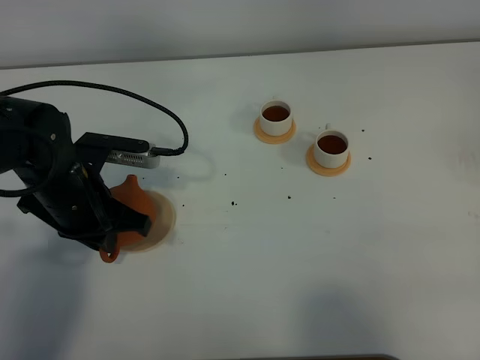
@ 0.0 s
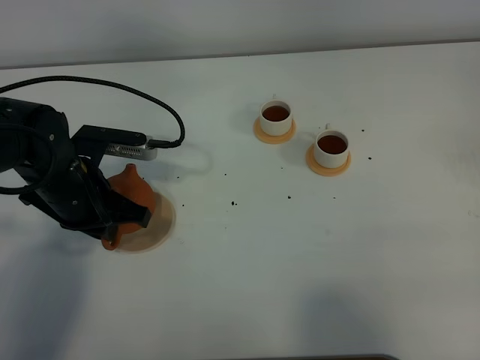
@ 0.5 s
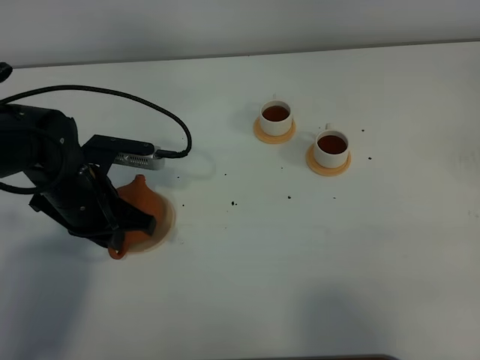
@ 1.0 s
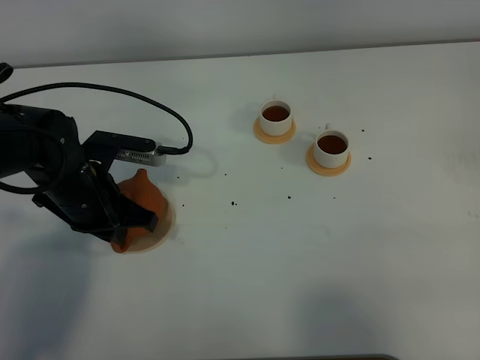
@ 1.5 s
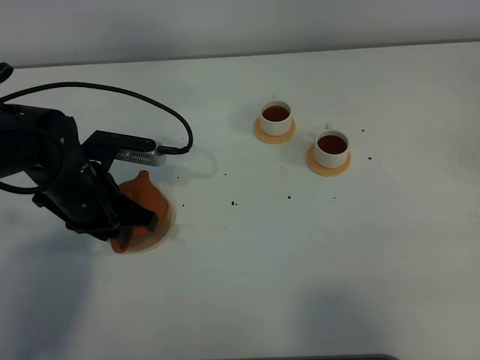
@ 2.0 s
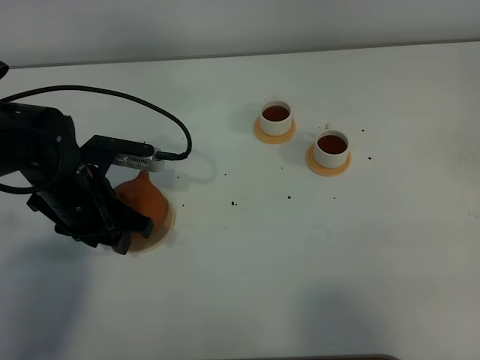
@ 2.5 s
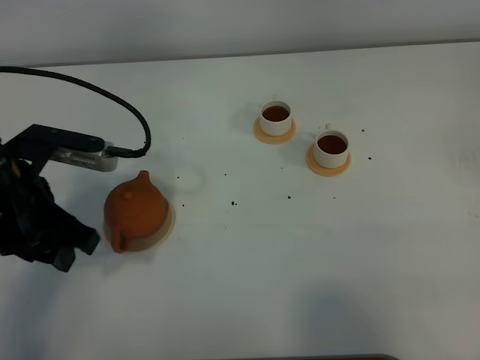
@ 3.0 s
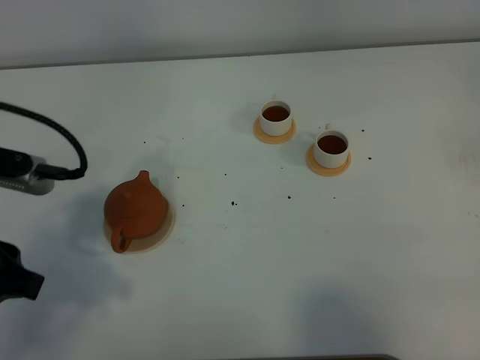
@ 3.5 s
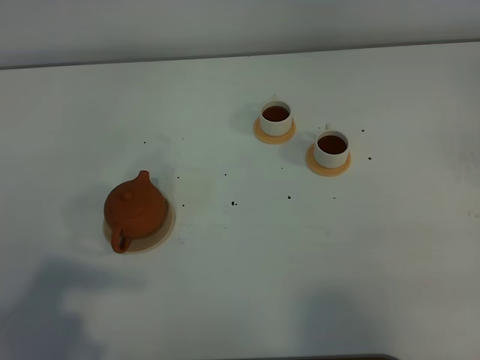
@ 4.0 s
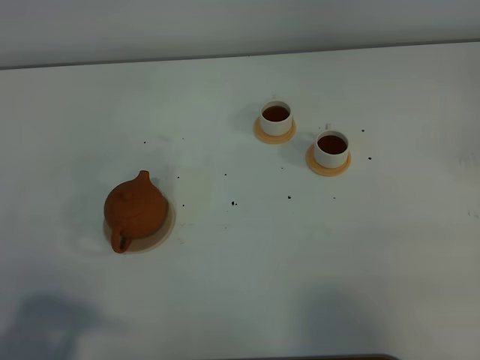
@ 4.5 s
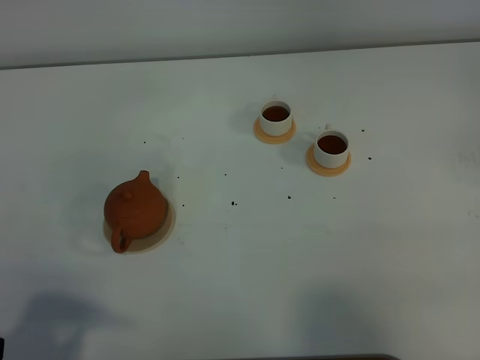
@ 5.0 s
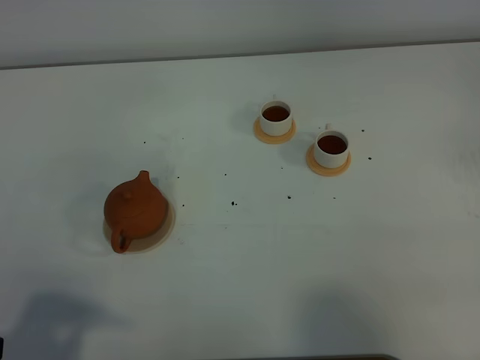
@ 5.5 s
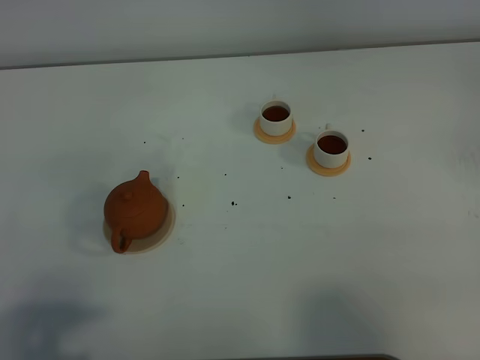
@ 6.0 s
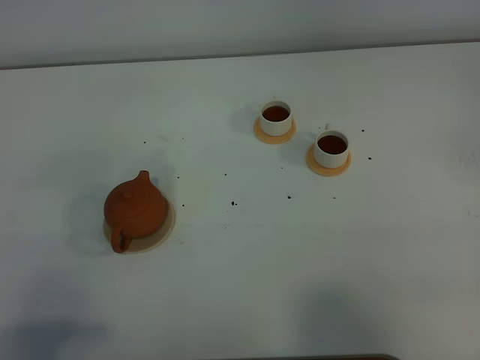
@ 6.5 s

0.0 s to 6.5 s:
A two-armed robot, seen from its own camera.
Task of the whole recording: grasp the brown teapot and pour the tea into the two white teacups one by one, put the brown teapot back in its original place.
0.0 to 2.0 s: The left gripper opens up.
2.0 to 4.5 s: The left gripper travels backward and upward by approximately 30 cm, and opens.

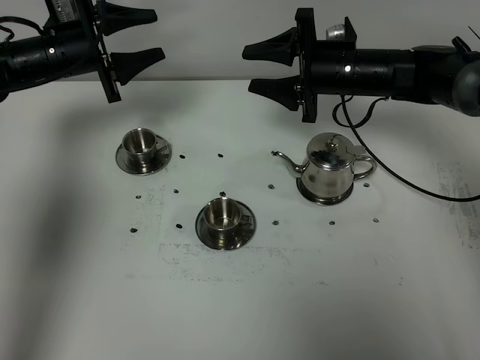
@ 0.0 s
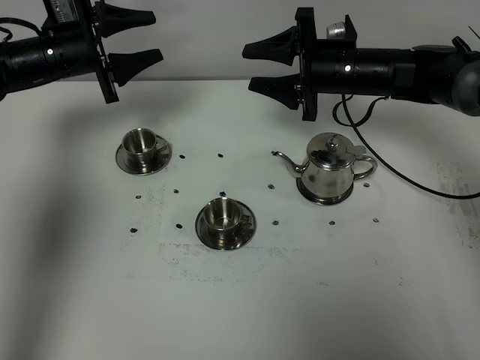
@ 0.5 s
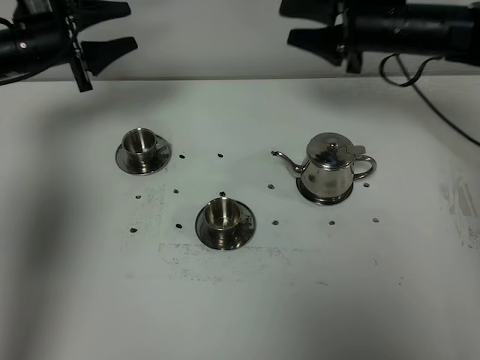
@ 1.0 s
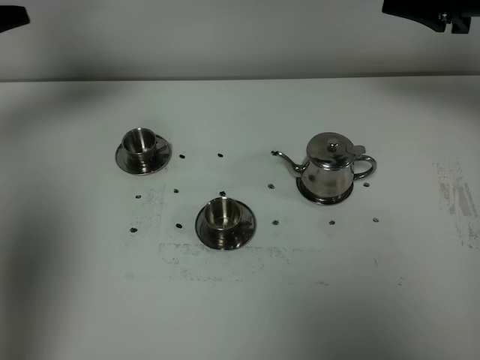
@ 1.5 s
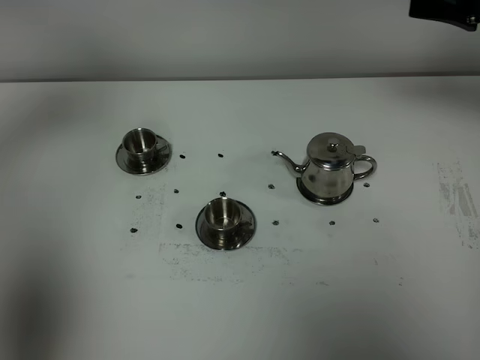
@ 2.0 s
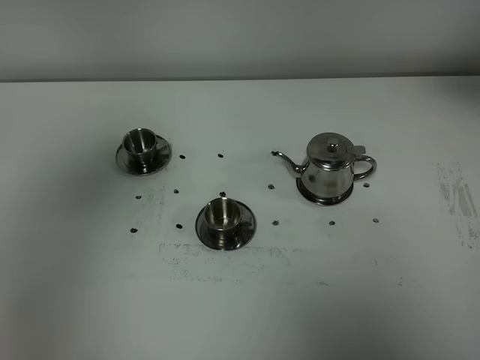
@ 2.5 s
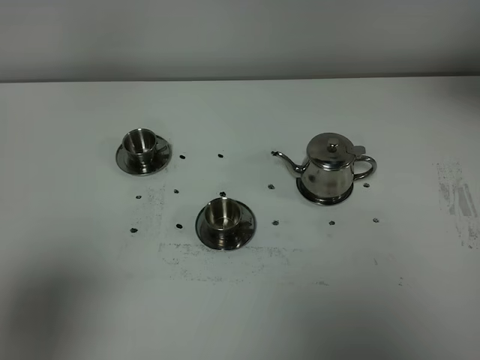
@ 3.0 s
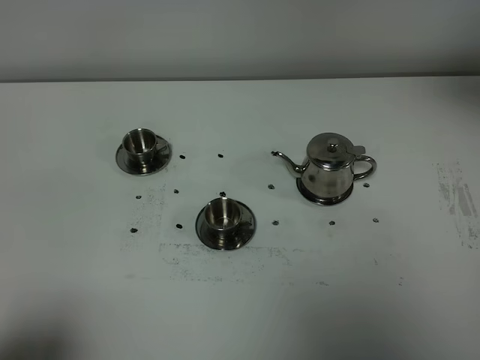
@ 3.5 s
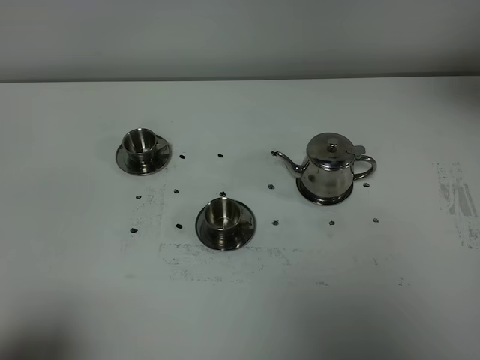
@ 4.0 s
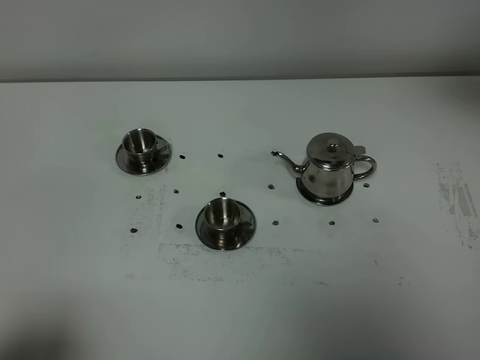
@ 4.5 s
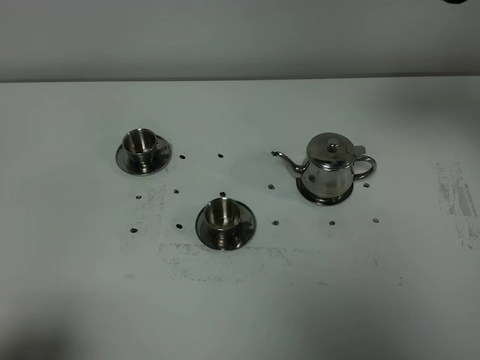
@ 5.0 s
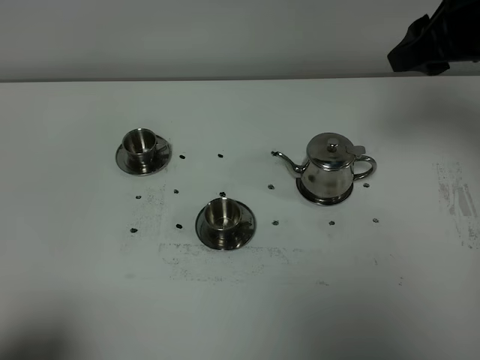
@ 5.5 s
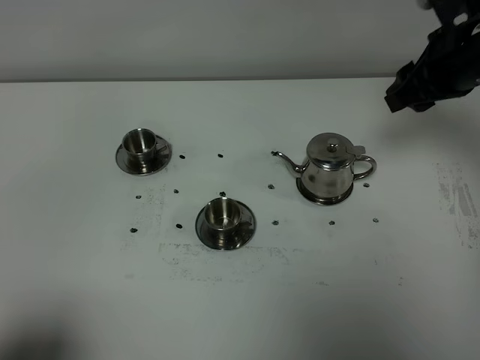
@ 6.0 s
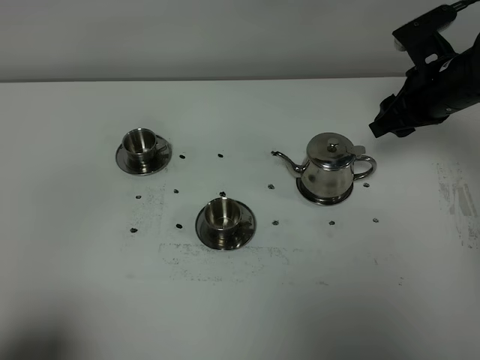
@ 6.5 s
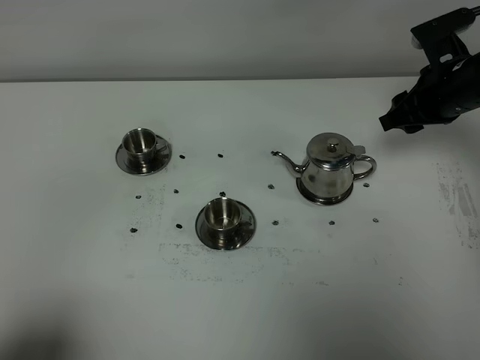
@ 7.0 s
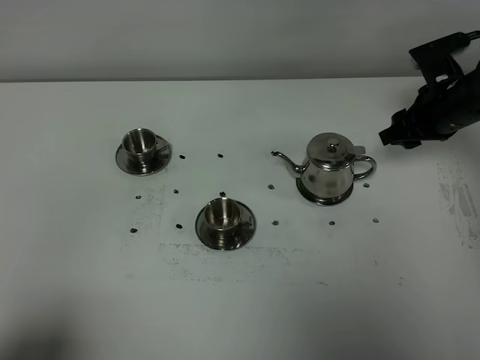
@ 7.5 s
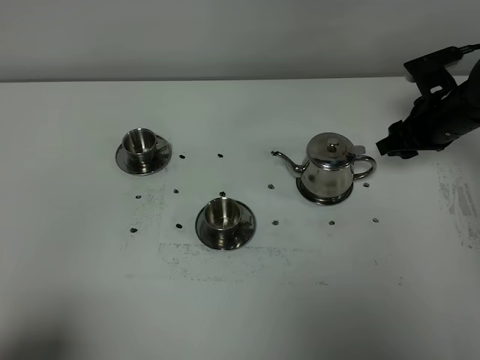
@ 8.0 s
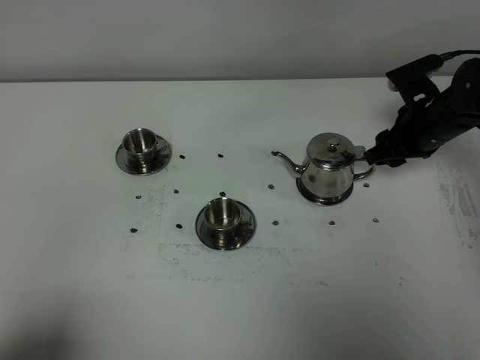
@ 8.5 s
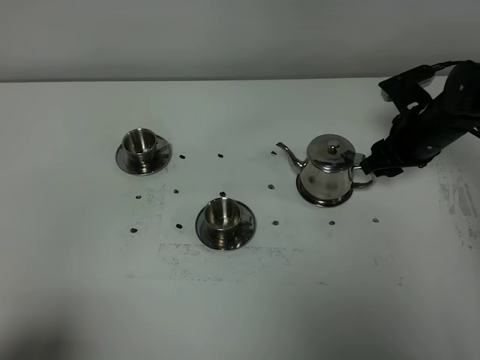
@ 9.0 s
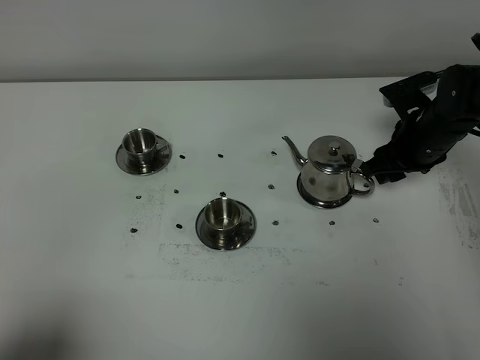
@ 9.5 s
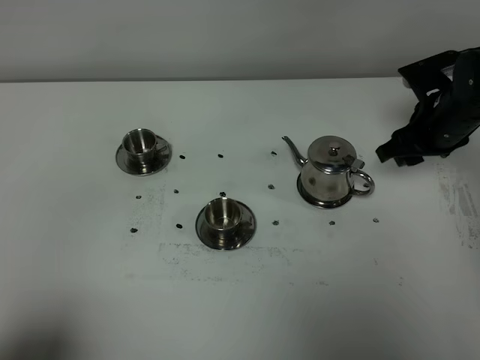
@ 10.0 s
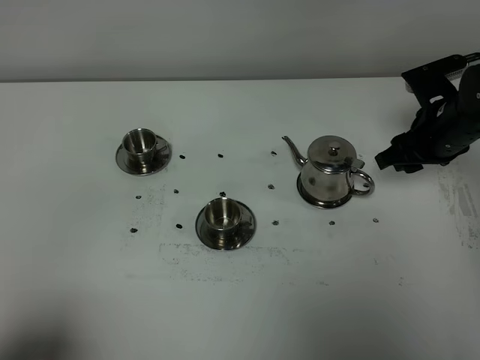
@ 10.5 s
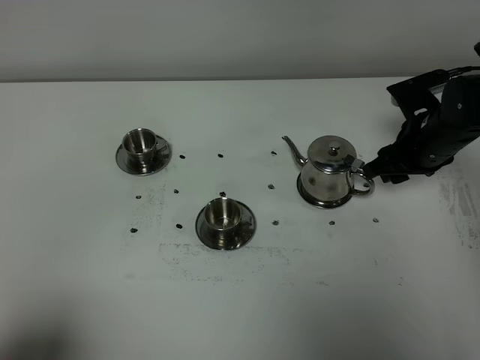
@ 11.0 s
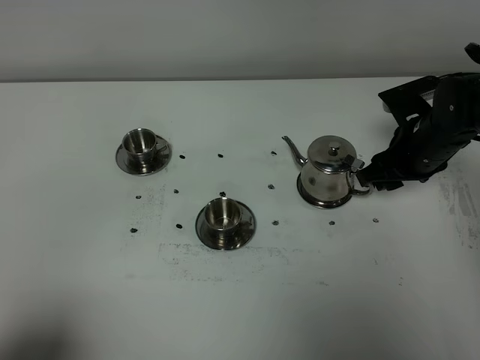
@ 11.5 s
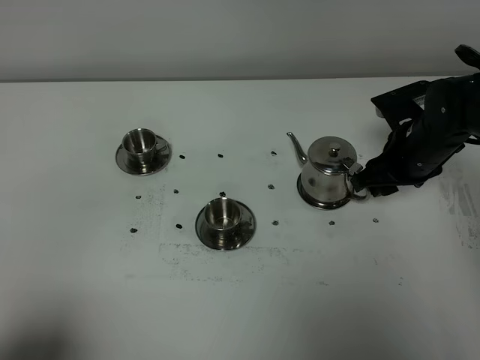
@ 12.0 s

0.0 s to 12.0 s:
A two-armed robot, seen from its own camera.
Task of the whole recording: grasp the stainless steel teapot and pour the tea into the two stainless steel teacups one by one, put the stainless steel teapot back in its original place.
0.0 to 2.0 s: The right gripper heads upward, to the right and backward, covering some 25 cm; the left gripper moves upward, backward and to the left, about 35 cm.
2.0 to 4.0 s: The right gripper is displaced upward and backward by some 15 cm. The left gripper is displaced backward and downward by about 35 cm.
4.0 to 6.0 s: The right gripper travels downward and forward by approximately 20 cm.
6.0 to 8.0 s: The right gripper shifts approximately 10 cm downward.
8.0 to 10.0 s: The grippers stay close to where they were, moving slightly.
10.0 to 12.0 s: The right gripper moves about 5 cm.

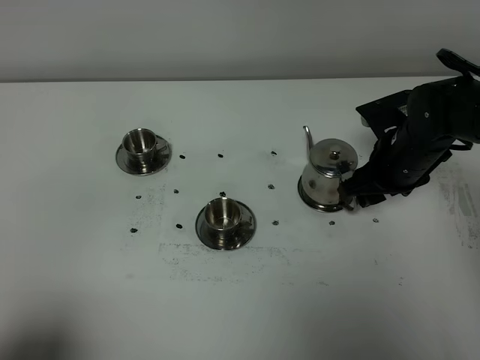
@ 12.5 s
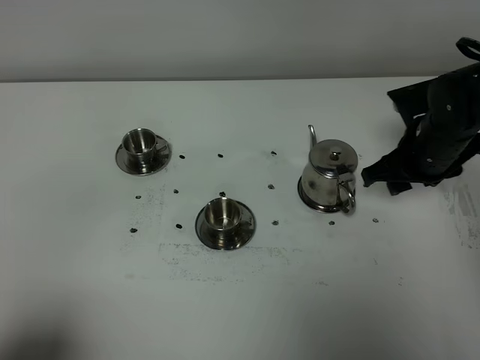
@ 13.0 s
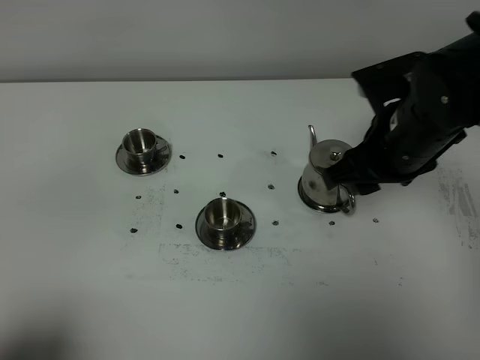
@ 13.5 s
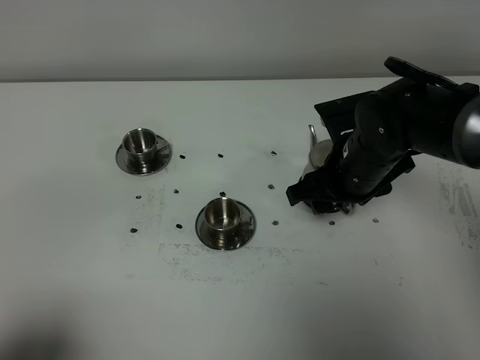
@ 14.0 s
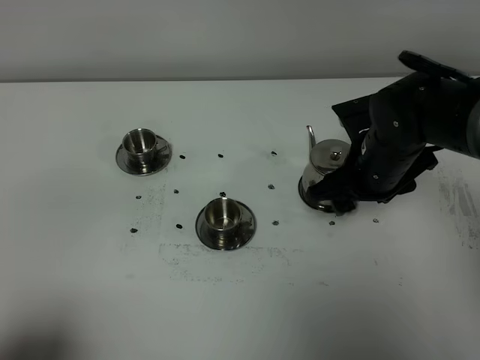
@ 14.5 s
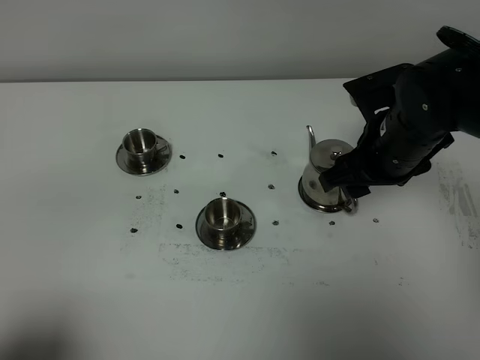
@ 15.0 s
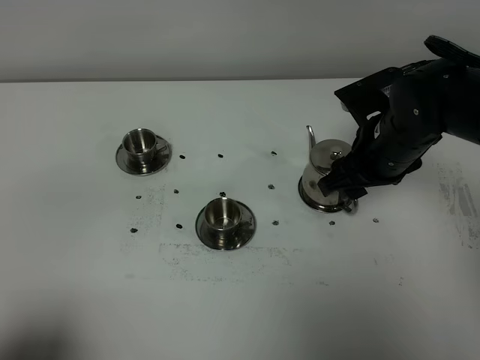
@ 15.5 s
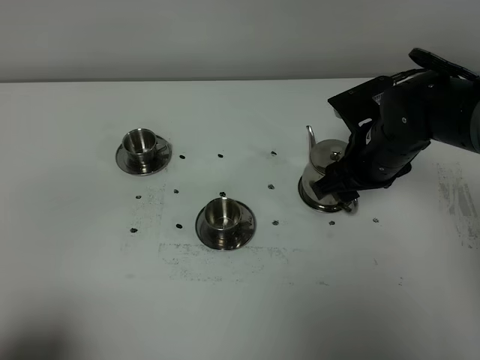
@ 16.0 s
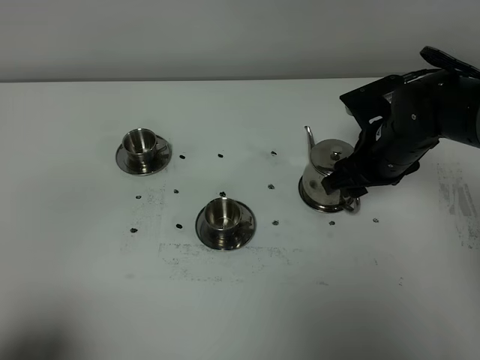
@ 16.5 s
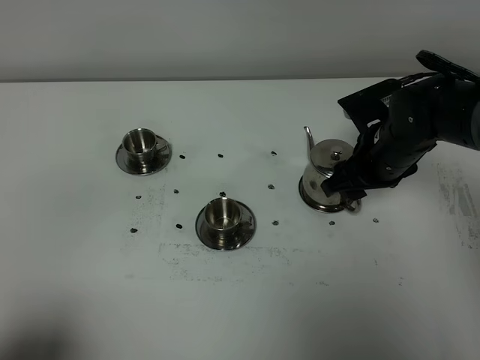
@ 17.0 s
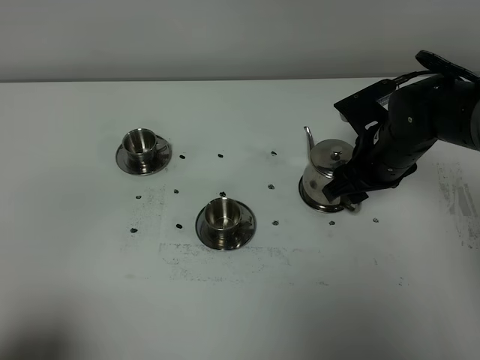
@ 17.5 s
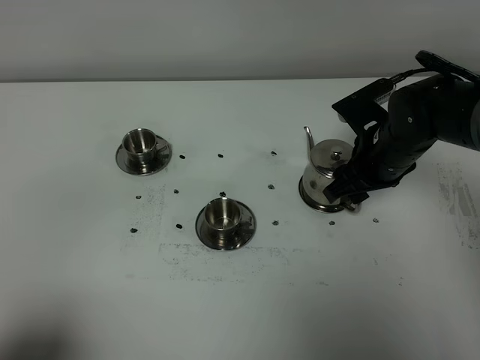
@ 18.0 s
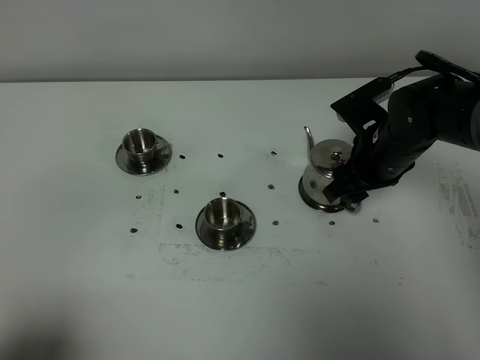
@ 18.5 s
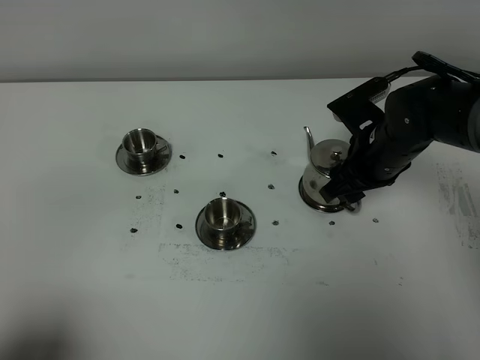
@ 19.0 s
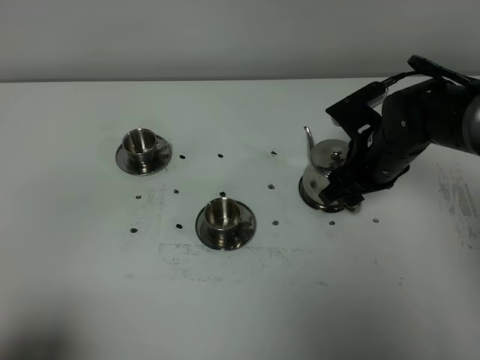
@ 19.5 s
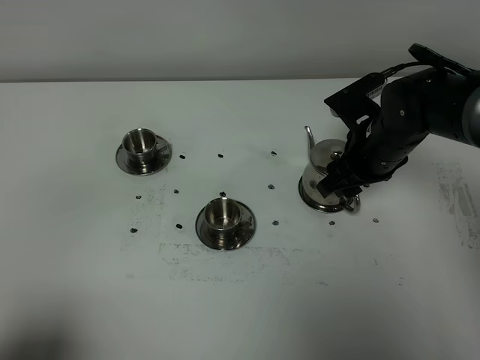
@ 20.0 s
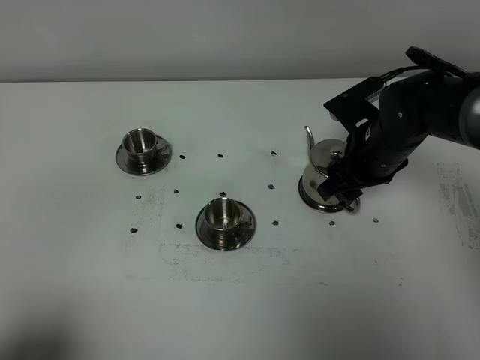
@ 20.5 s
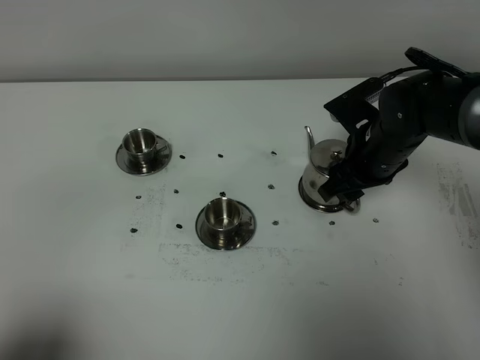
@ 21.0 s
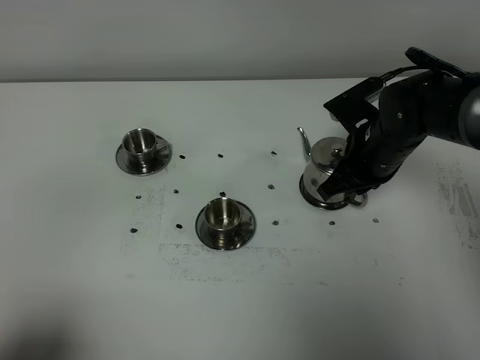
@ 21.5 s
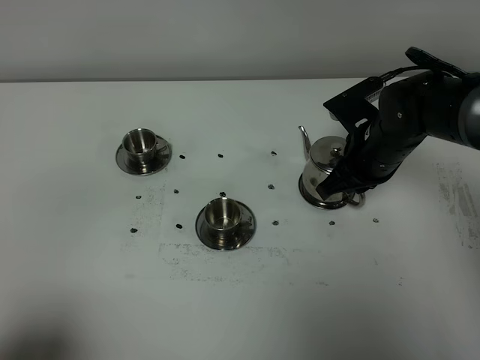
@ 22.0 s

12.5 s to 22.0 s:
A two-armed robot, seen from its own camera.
Task of the whole recording: grasp the stainless steel teapot and pour the tea into the two stainless steel teacups one by one, put the stainless steel teapot back in its original place.
12.5 to 14.5 s: The right gripper moves to the left, roughly 5 cm.
14.5 to 18.0 s: The grippers stay close to where they were, moving slightly.
18.0 to 20.0 s: The two grippers keep their place.
20.0 to 22.0 s: The right gripper closes.
